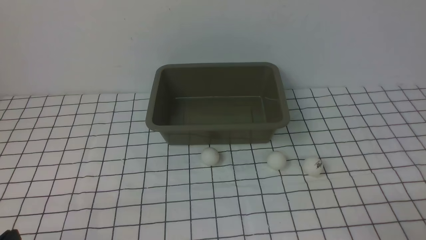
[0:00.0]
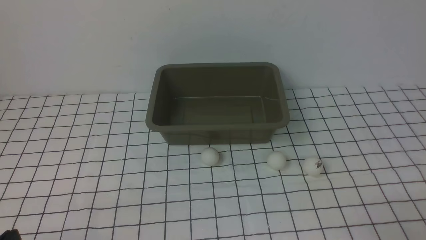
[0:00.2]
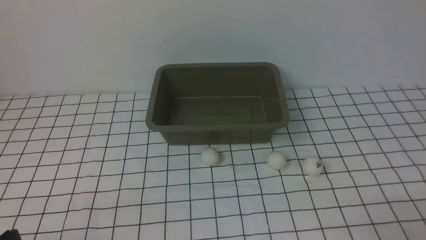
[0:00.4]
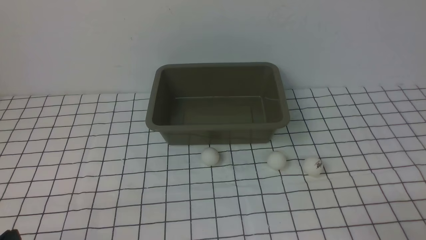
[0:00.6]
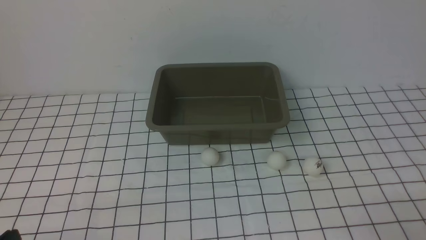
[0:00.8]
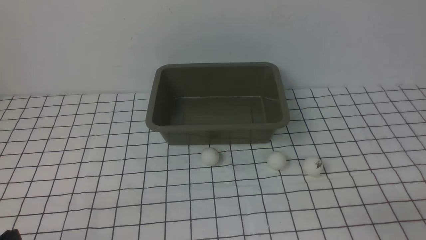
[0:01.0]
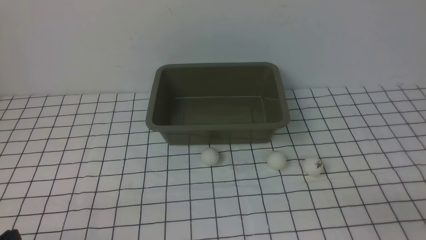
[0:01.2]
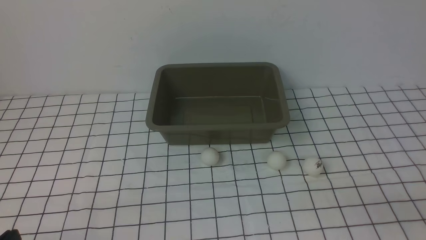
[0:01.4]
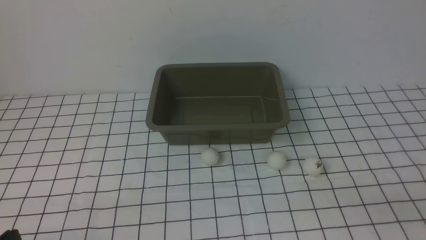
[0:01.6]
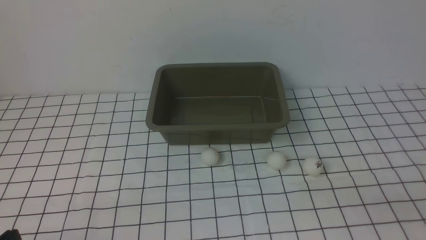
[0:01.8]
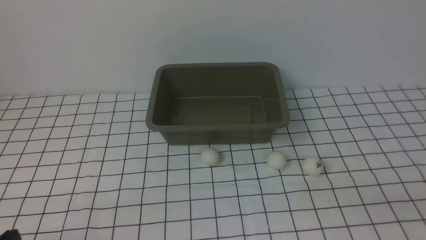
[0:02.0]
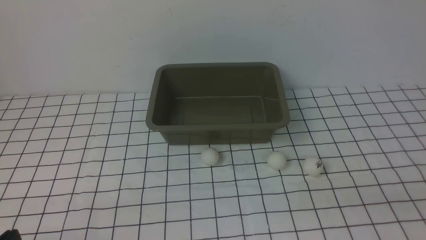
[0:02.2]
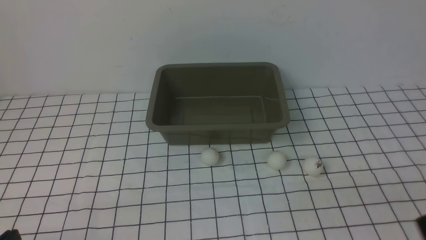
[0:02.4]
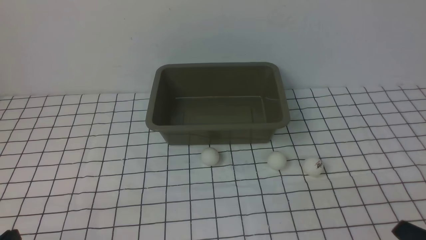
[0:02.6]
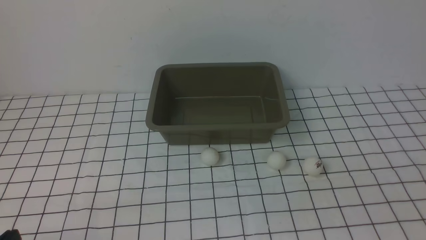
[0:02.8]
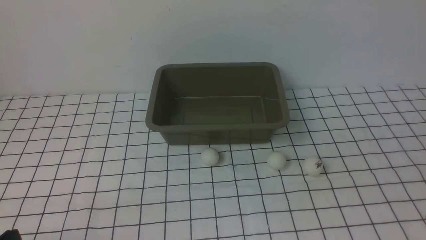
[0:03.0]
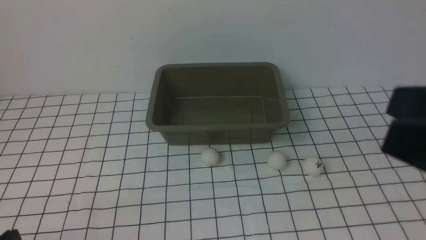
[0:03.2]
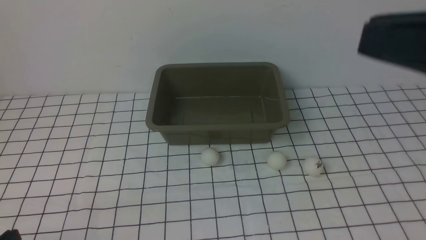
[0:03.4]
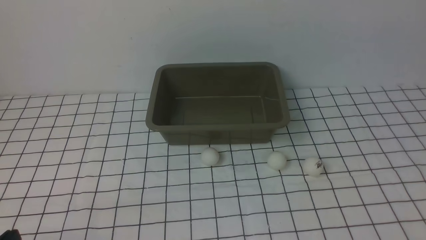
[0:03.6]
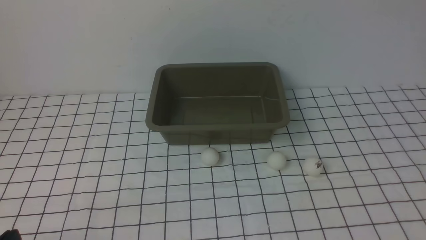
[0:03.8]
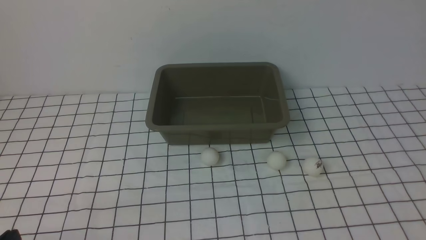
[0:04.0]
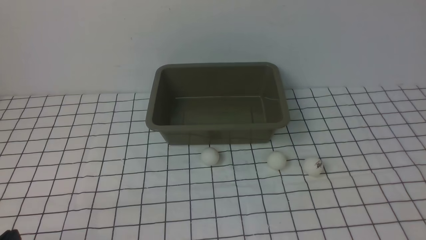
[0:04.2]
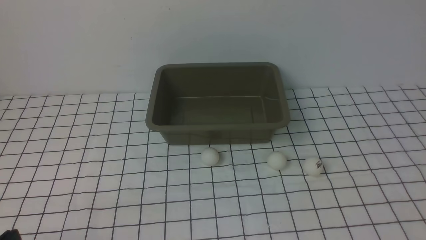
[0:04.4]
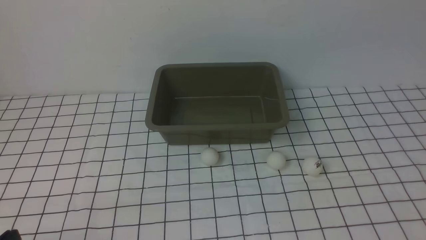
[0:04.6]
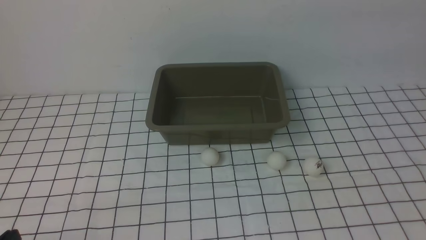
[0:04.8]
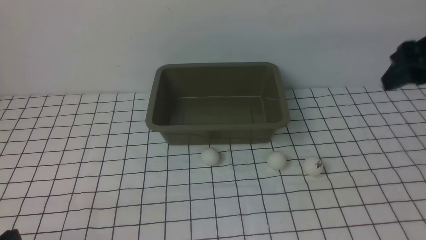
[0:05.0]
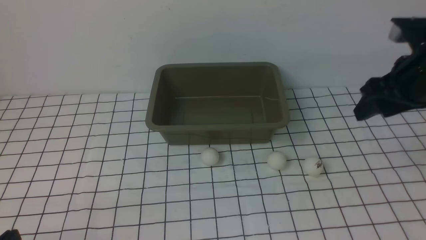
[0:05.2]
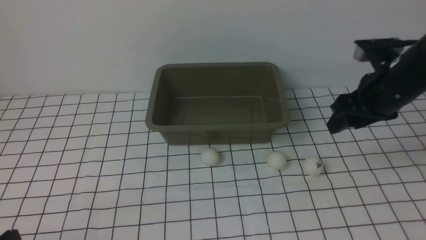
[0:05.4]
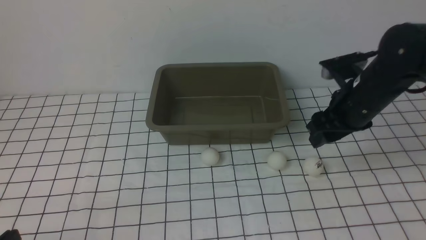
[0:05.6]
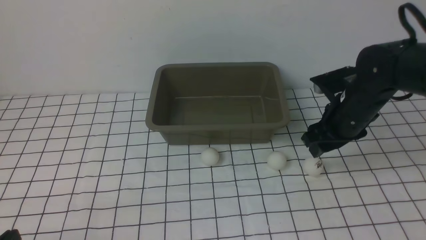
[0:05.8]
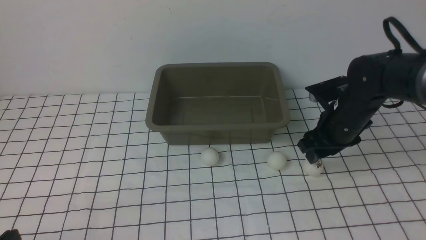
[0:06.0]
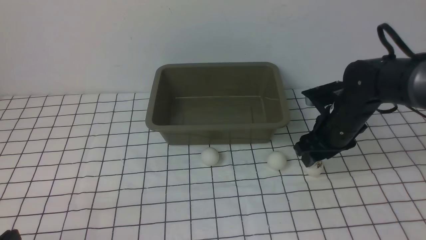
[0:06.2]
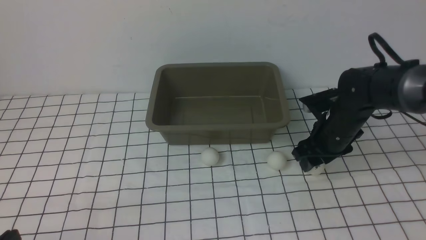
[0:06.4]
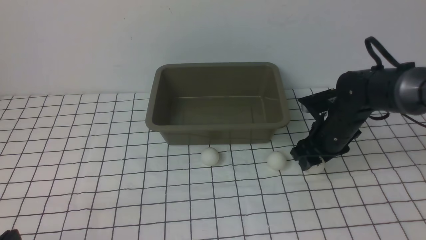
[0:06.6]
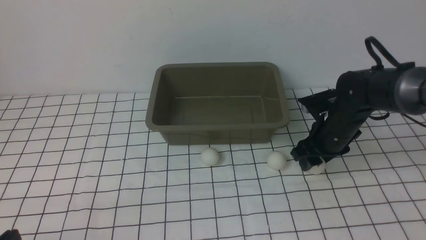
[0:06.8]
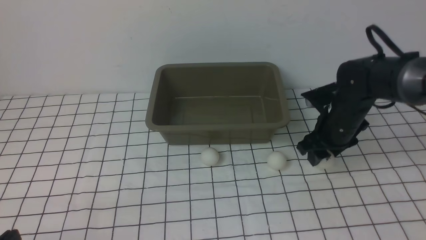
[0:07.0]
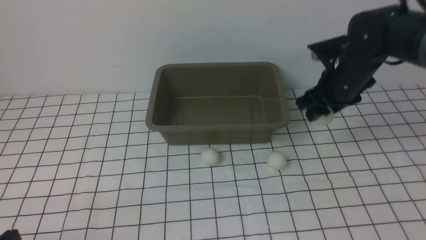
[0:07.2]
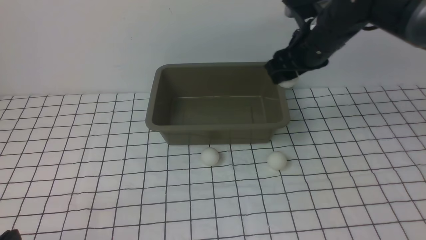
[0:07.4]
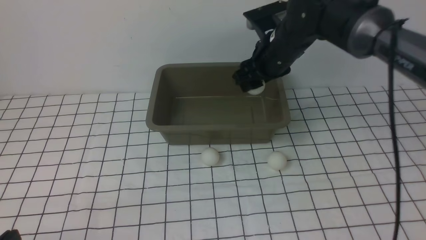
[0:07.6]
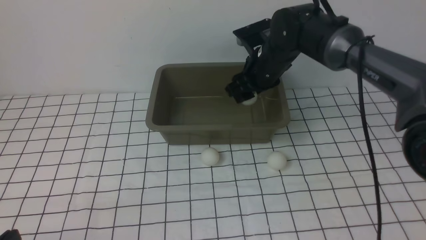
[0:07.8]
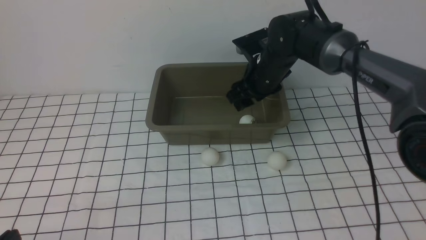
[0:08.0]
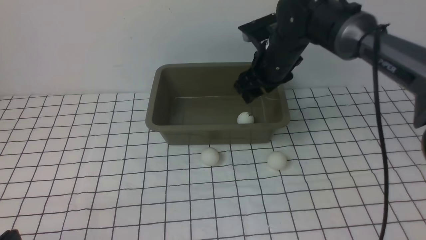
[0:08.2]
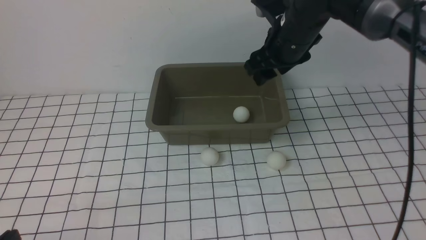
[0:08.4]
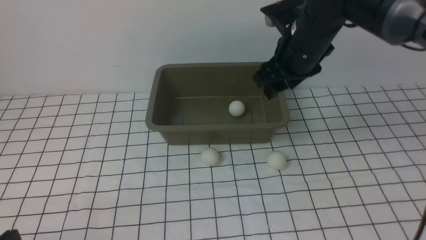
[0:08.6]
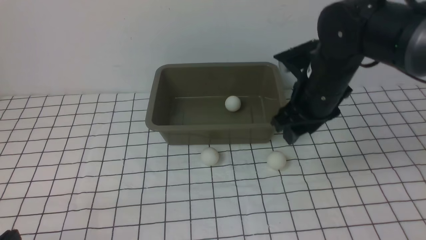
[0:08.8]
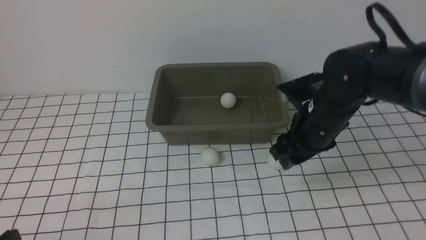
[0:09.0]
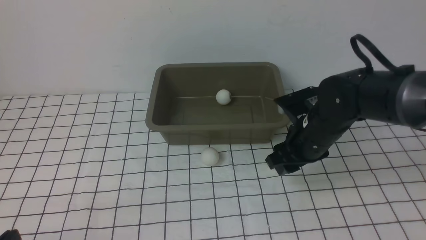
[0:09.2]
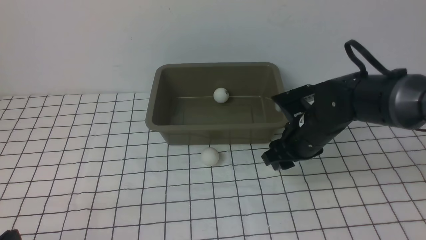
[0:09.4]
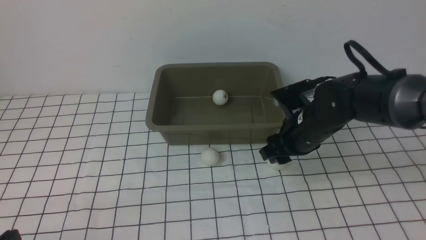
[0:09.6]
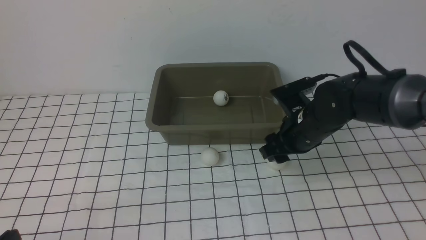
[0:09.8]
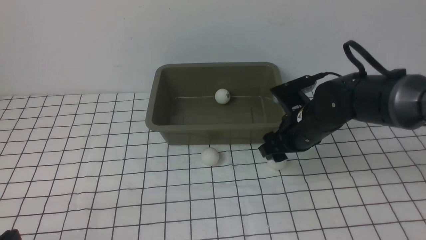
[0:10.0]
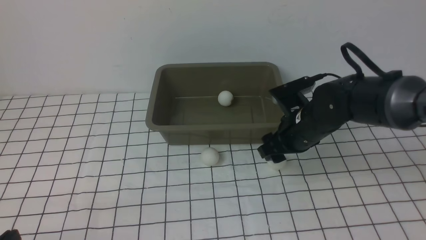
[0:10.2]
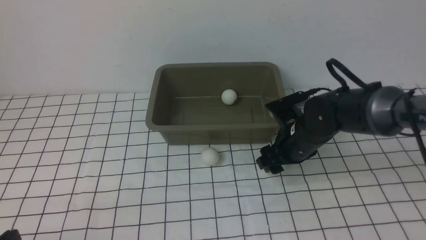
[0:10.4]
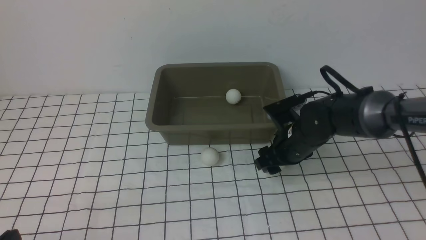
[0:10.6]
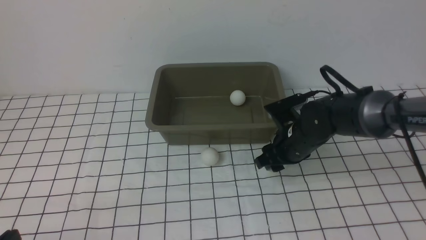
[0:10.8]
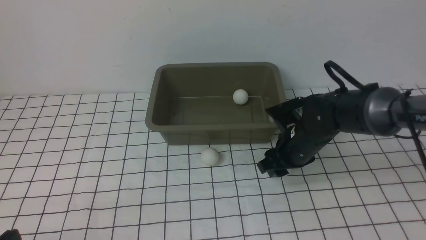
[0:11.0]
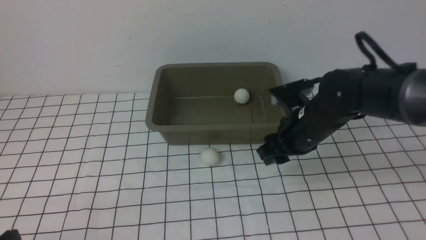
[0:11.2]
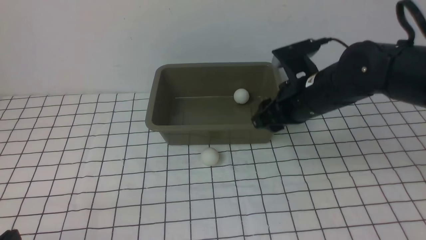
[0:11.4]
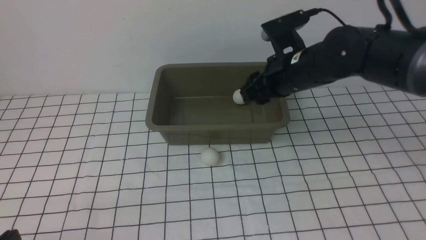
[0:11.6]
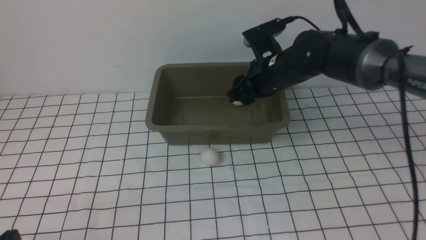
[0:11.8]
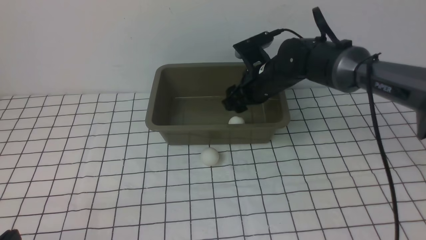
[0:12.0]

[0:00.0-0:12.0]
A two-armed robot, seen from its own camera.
Step, 0.0 to 7.0 s: use the right arm to clamp the table tennis ball closest to it.
Step, 7.4 to 8.0 s: use the right arm to put the table tennis ball into the box.
Step, 8.2 to 11.0 s: use the right arm to clamp the table tennis ball closest to it.
4.4 to 6.0 s: The right gripper travels downward, forward and to the left by roughly 40 cm.
6.0 to 7.6 s: The right gripper is displaced to the left, forward and upward by roughly 15 cm.
7.6 to 9.0 s: The right gripper shifts roughly 10 cm backward.
9.0 to 10.4 s: The right gripper is displaced downward by approximately 10 cm.
10.4 to 12.0 s: The right gripper moves upward and forward, about 10 cm.

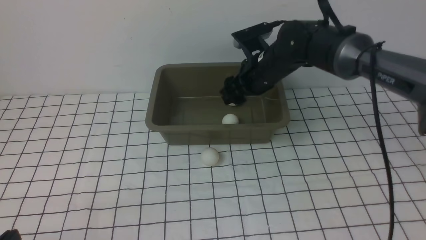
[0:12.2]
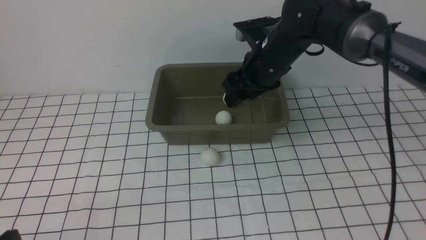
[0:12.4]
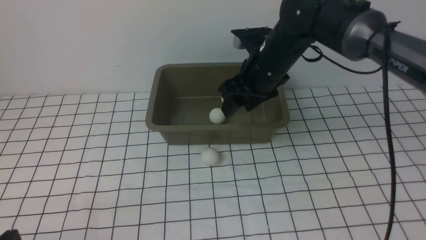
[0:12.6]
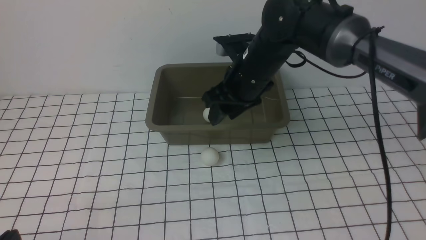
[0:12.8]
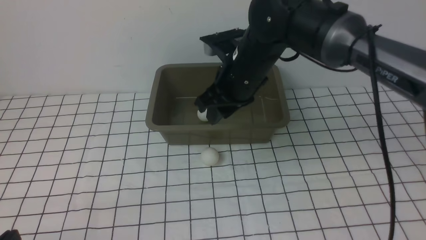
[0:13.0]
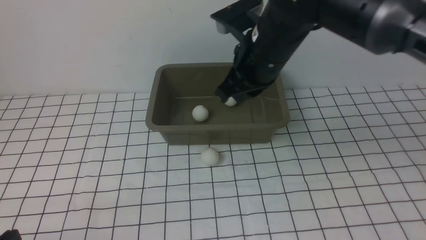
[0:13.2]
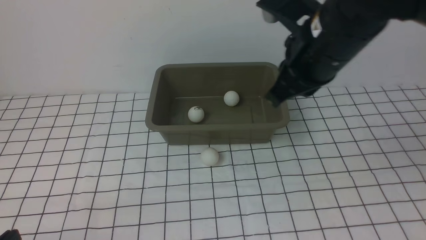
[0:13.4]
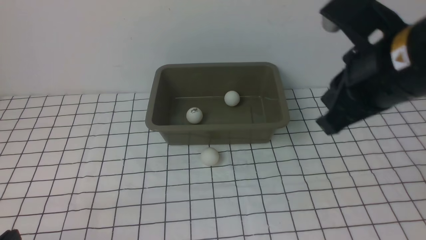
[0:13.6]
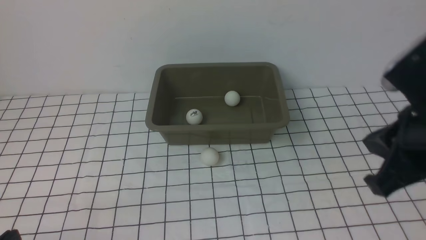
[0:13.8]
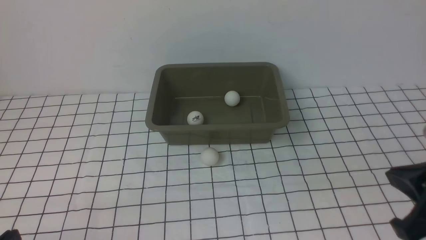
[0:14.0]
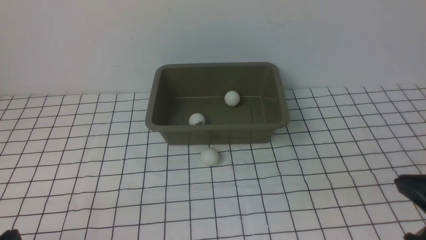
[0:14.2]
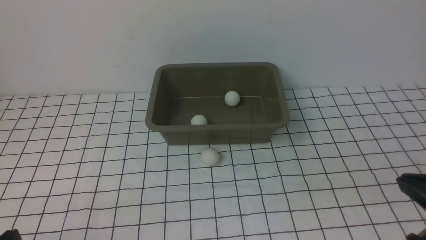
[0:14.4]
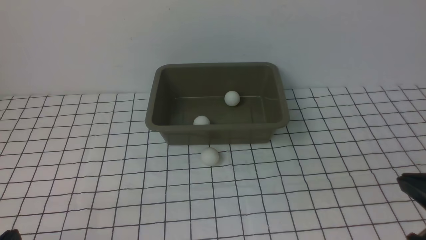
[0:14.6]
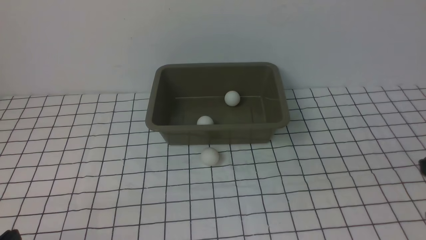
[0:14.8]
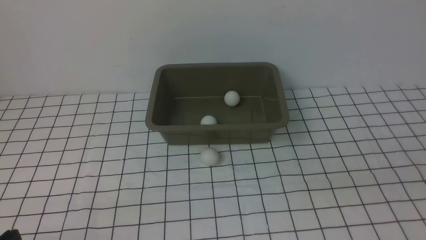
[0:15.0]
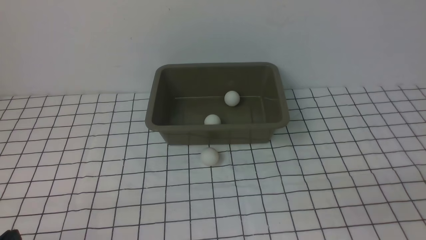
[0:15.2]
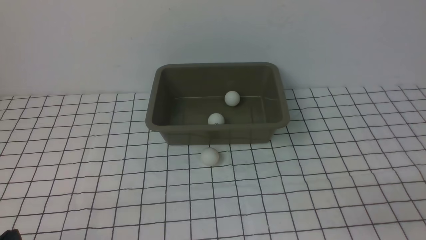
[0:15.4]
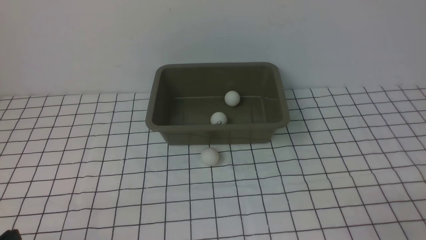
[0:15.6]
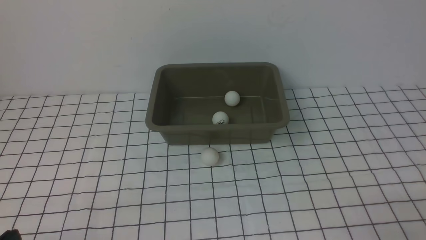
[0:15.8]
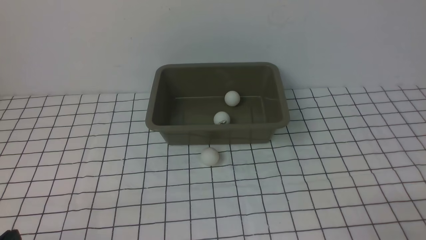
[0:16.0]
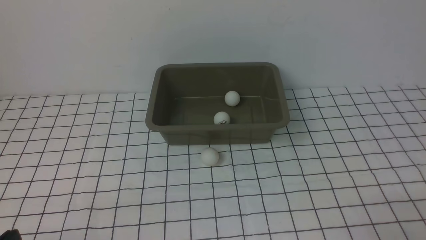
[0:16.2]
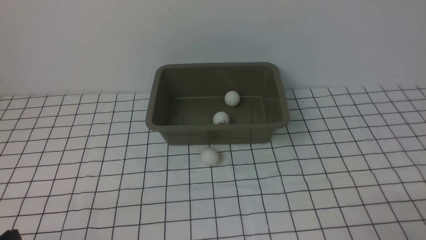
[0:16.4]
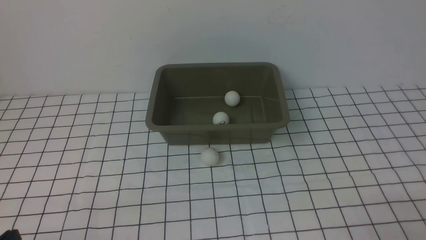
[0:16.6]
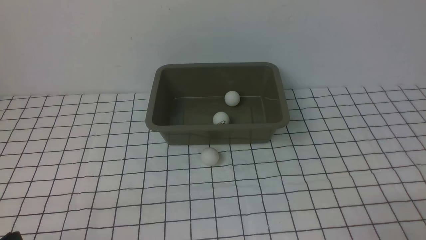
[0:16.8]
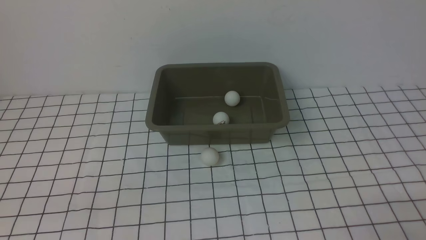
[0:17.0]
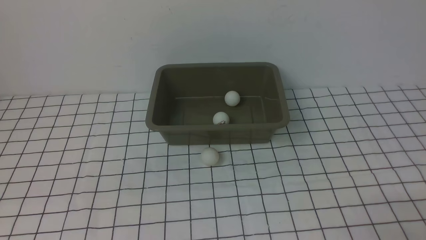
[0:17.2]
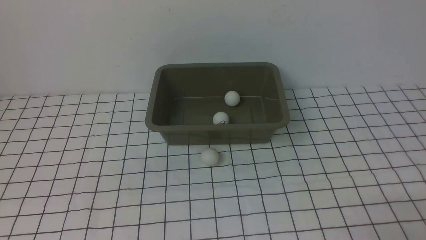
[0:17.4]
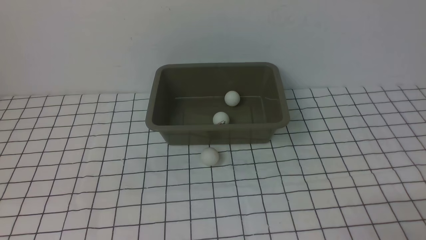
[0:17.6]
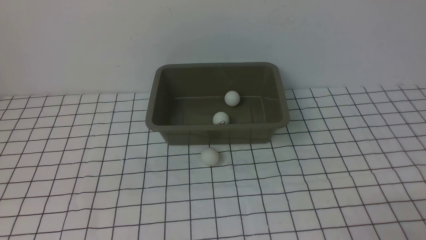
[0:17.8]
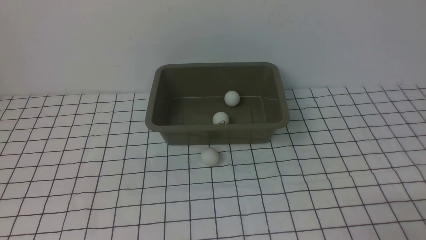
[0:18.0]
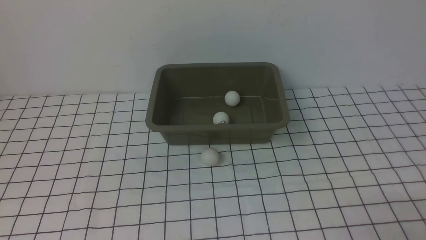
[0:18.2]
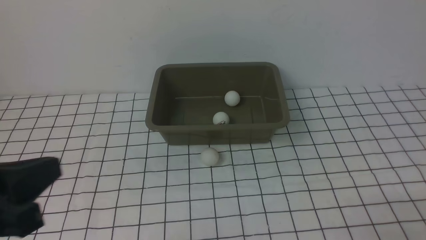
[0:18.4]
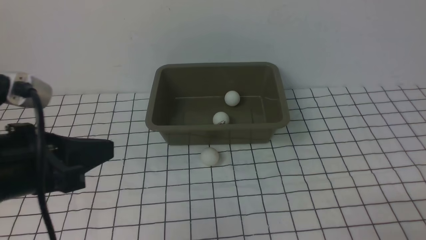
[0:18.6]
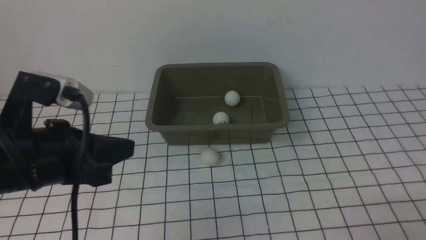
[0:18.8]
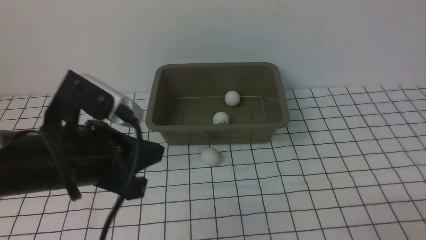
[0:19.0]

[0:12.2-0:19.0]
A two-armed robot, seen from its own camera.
12.2 to 13.6 s: The right gripper travels backward and upward by some 25 cm, and closes.
13.6 to 15.0 s: The right gripper shifts some 25 cm backward, to the right and downward.
17.6 to 19.0 s: The left gripper heads forward and to the right, covering some 20 cm.
